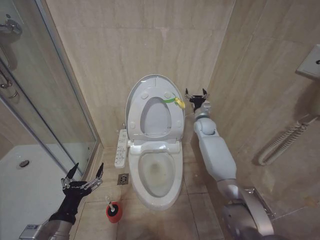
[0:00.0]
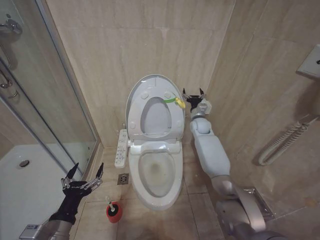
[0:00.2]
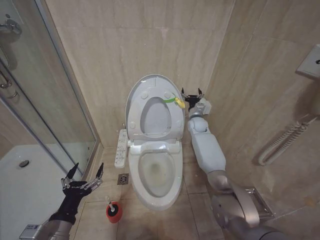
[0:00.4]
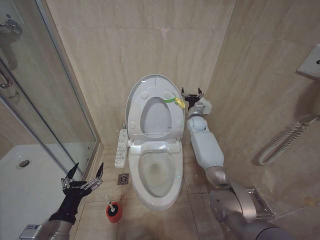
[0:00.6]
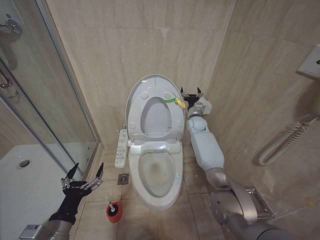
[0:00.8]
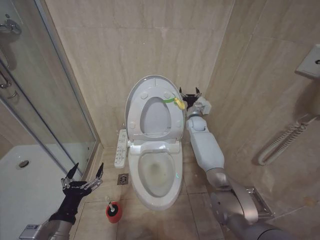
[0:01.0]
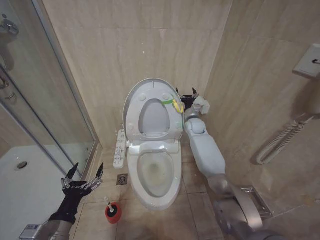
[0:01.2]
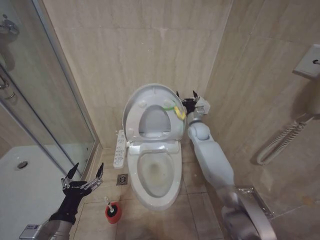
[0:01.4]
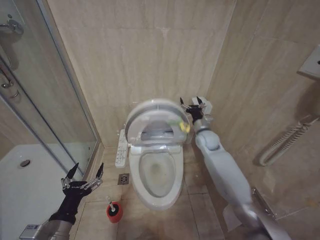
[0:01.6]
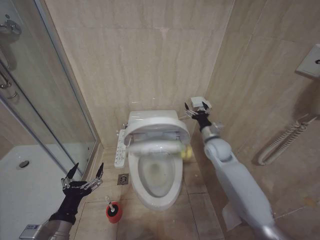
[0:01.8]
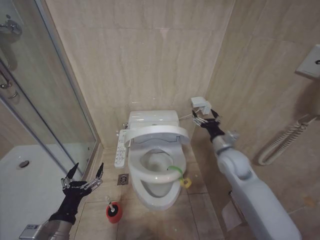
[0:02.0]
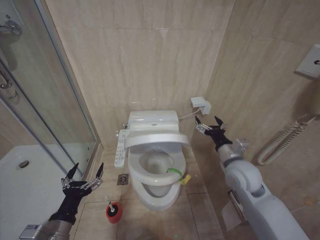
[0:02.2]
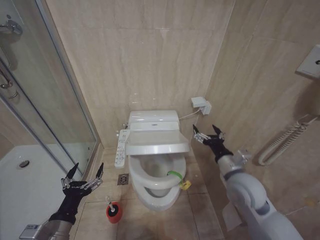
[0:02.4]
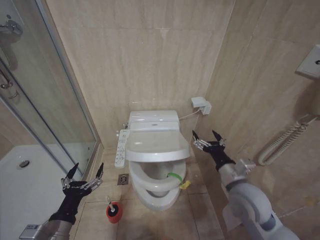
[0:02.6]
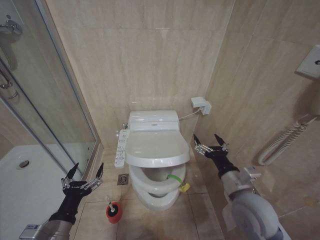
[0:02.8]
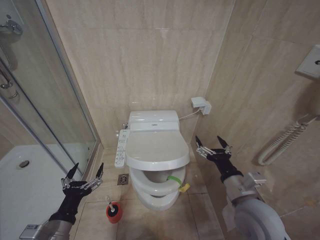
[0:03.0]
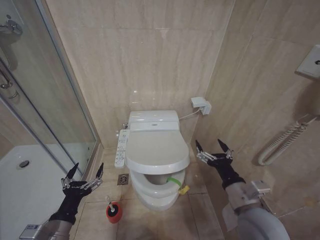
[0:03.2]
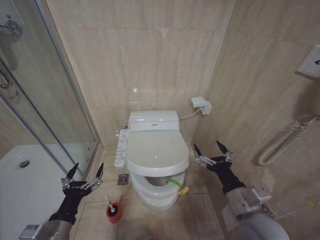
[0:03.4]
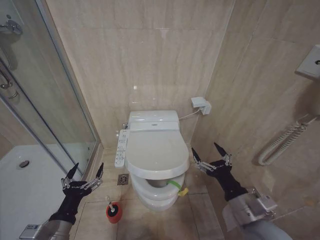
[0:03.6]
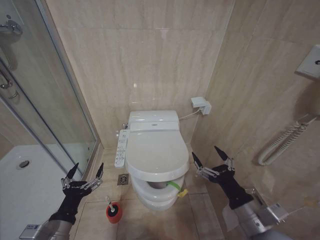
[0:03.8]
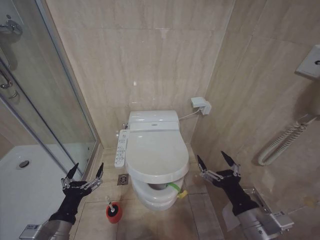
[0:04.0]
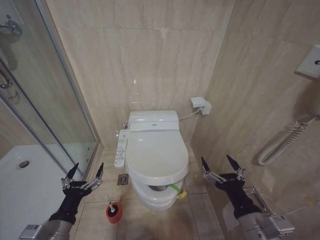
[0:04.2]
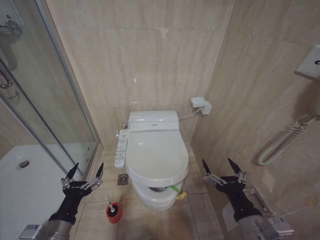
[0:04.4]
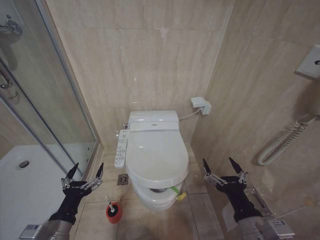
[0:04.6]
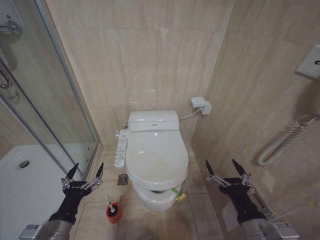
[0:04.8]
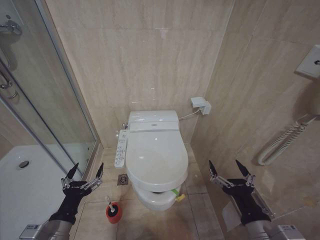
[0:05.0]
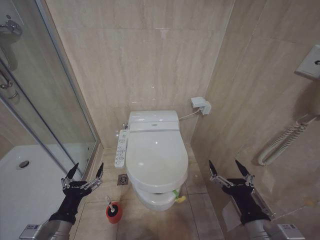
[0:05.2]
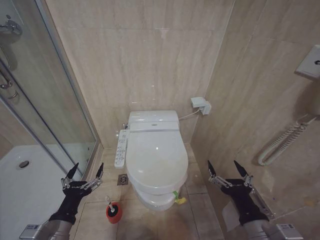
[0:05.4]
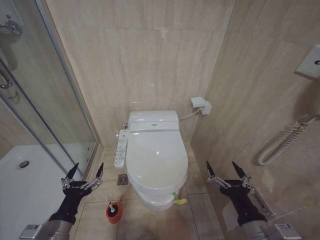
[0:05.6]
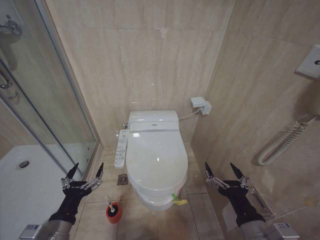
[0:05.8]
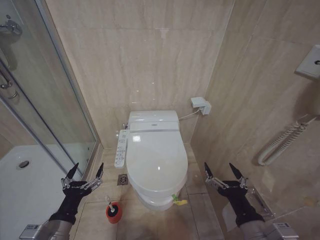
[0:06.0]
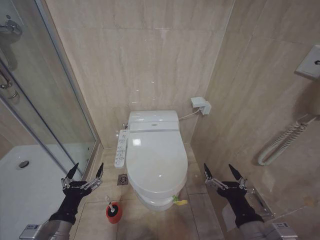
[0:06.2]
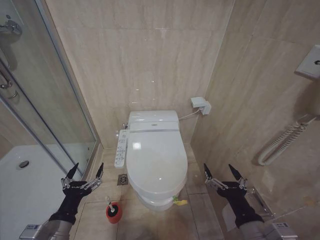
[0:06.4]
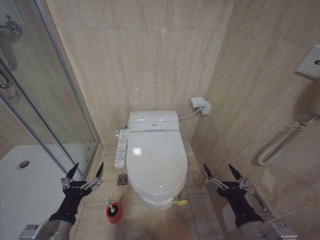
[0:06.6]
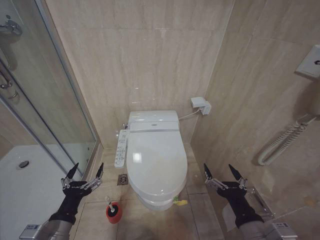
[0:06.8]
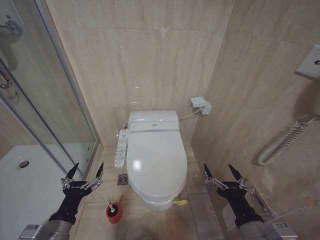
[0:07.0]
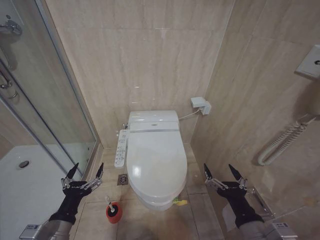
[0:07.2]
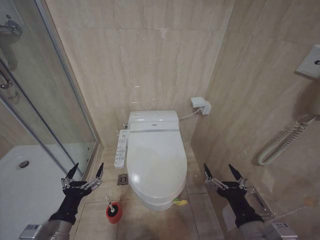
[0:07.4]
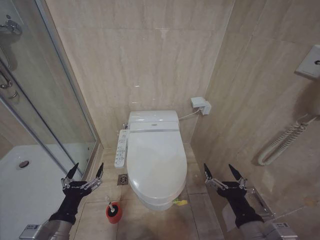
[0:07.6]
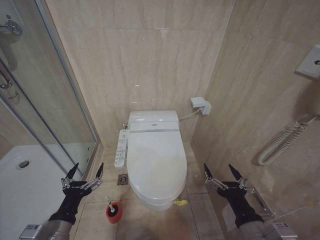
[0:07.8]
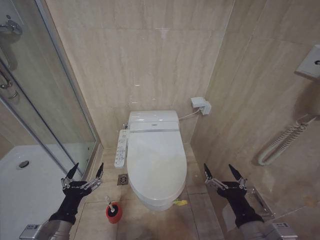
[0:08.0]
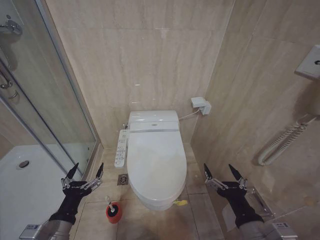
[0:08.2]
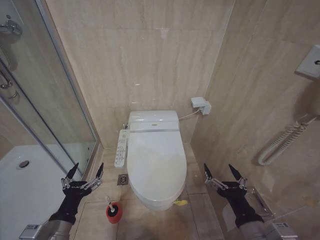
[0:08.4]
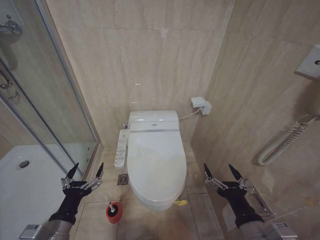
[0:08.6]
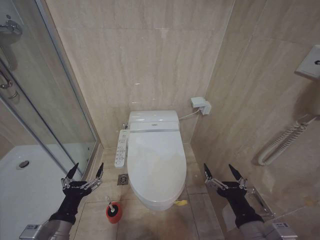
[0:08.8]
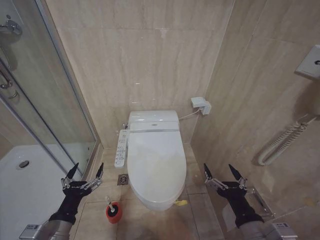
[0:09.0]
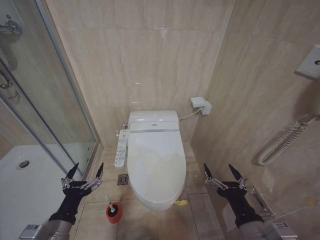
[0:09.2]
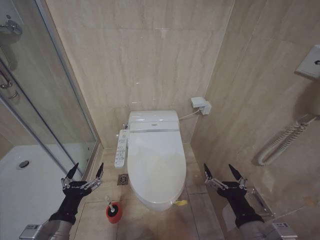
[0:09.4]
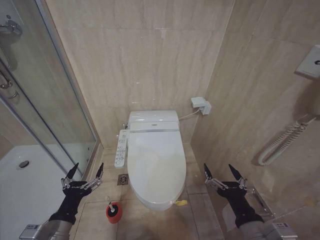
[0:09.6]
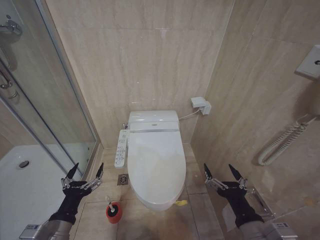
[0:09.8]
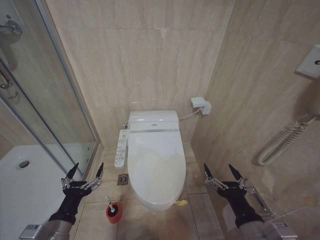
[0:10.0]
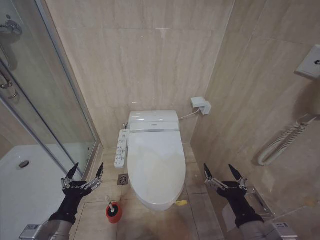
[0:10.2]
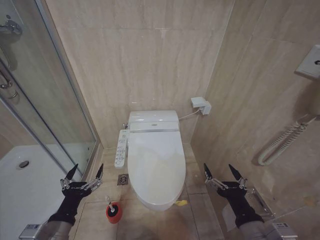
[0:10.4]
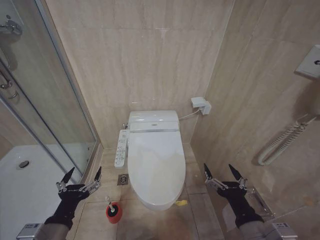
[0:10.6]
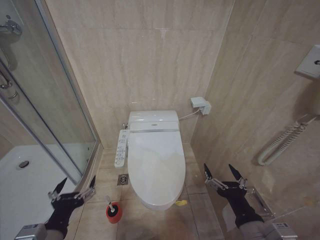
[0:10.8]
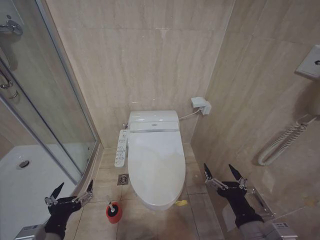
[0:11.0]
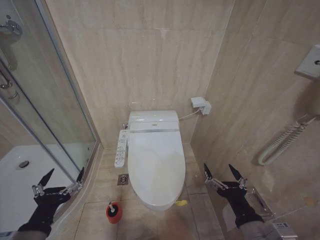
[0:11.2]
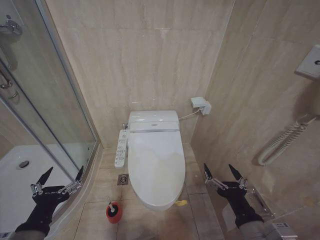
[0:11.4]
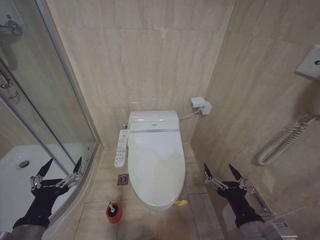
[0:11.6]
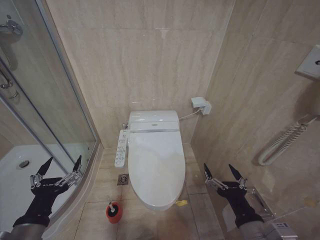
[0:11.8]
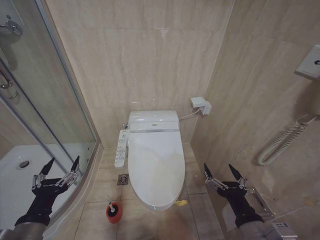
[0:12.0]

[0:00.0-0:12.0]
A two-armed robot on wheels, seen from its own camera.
Task of the whole recording: Open the toilet lid, clean the toilet bowl with a toilet brush, close the toilet lid, and flush.
0:00.0 to 0:01.6: The right gripper ends up approximately 5 cm from where it was.
0:01.6 to 0:03.0: The right gripper is displaced backward by roughly 30 cm.
0:03.0 to 0:04.4: The right gripper moves backward, approximately 10 cm.
0:04.4 to 0:06.0: The grippers stay close to where they were, moving slightly.
0:06.0 to 0:10.4: Both grippers stay about where they are.
0:10.4 to 0:12.0: The left gripper shifts roughly 5 cm upward.

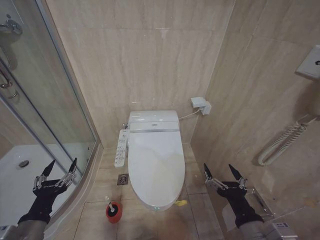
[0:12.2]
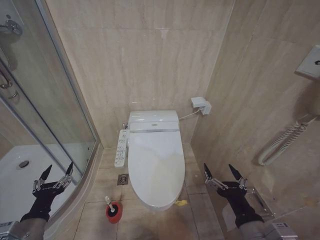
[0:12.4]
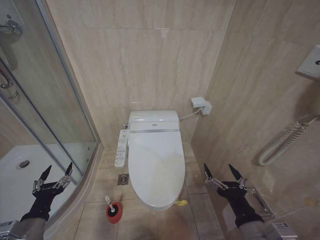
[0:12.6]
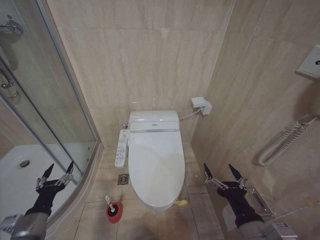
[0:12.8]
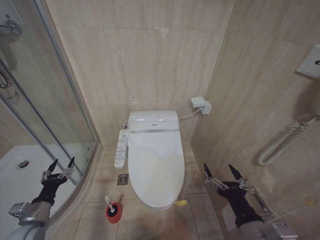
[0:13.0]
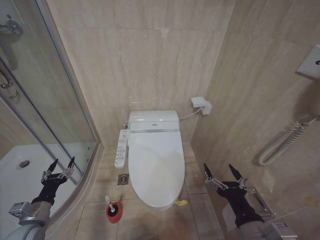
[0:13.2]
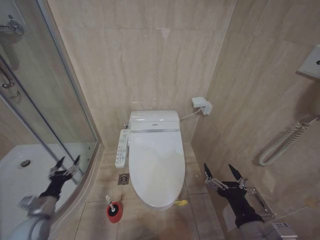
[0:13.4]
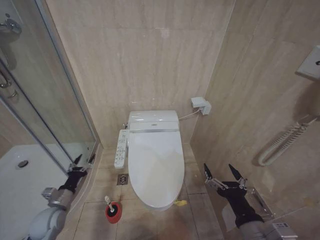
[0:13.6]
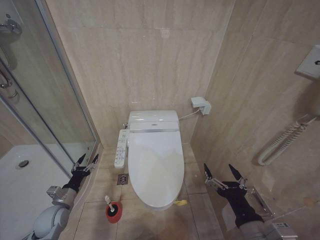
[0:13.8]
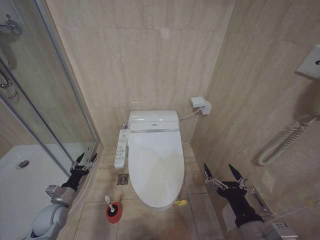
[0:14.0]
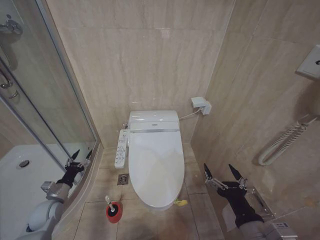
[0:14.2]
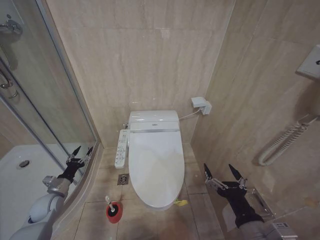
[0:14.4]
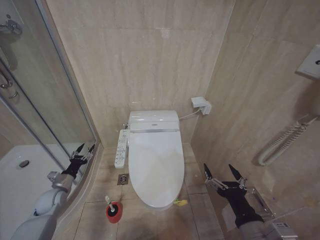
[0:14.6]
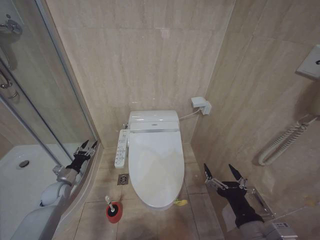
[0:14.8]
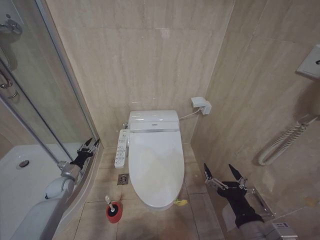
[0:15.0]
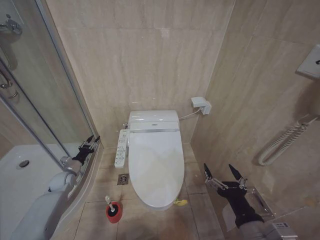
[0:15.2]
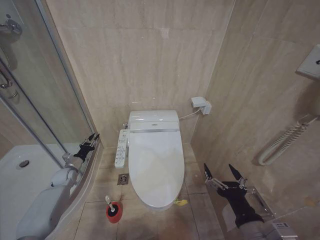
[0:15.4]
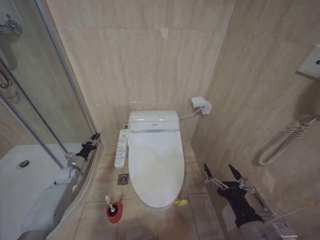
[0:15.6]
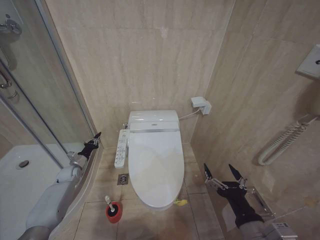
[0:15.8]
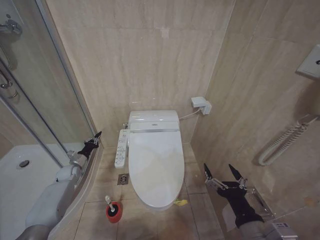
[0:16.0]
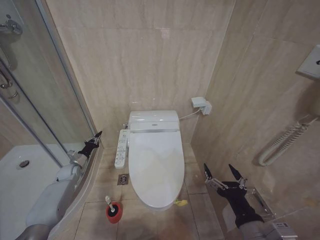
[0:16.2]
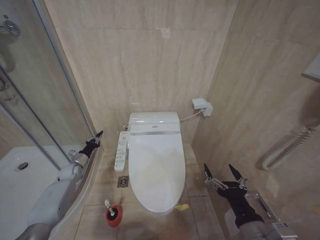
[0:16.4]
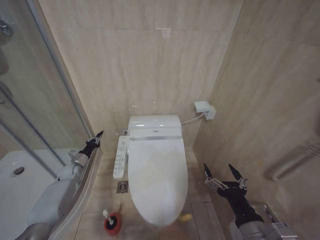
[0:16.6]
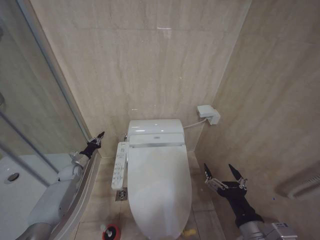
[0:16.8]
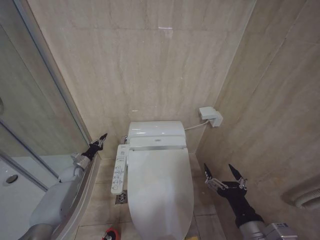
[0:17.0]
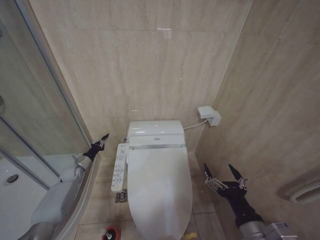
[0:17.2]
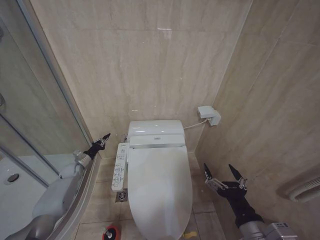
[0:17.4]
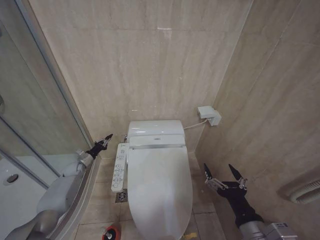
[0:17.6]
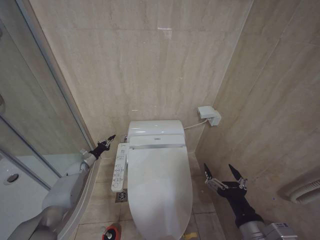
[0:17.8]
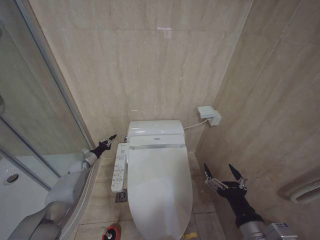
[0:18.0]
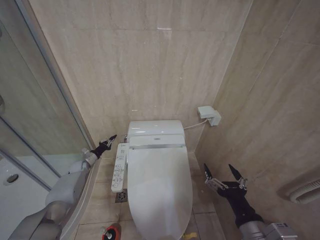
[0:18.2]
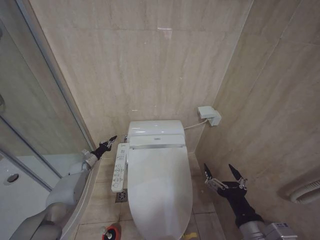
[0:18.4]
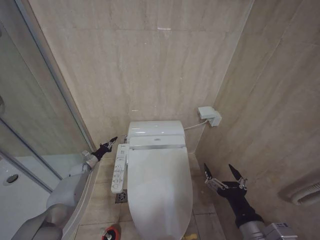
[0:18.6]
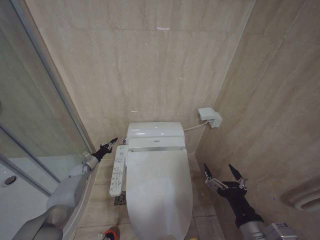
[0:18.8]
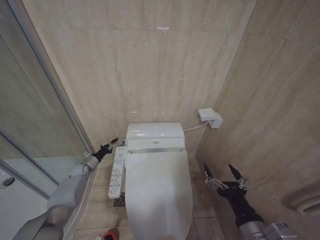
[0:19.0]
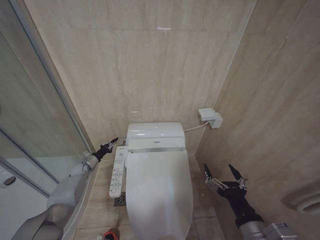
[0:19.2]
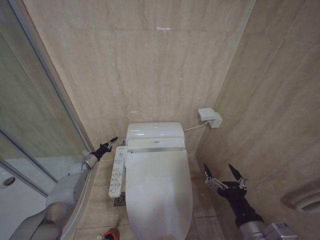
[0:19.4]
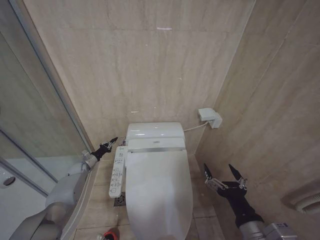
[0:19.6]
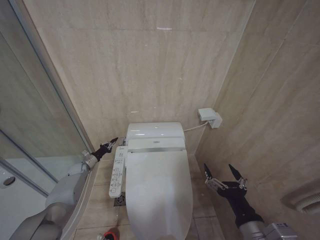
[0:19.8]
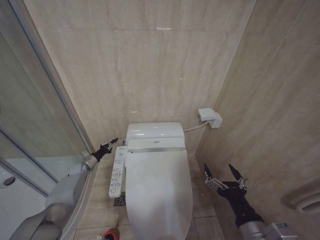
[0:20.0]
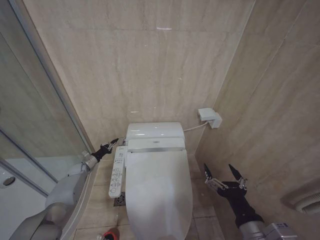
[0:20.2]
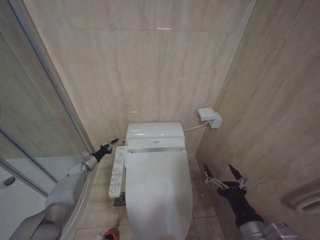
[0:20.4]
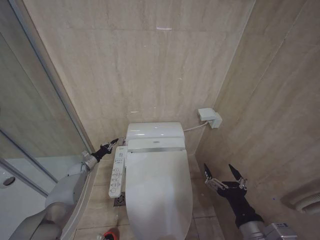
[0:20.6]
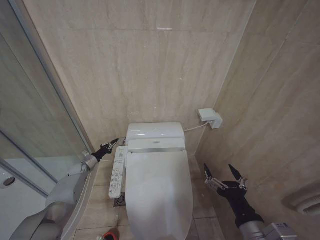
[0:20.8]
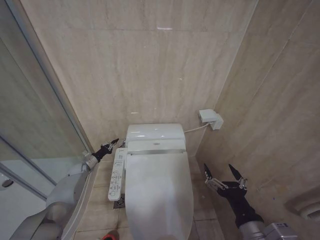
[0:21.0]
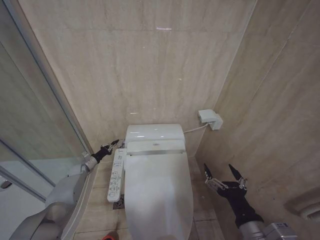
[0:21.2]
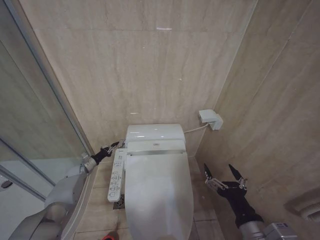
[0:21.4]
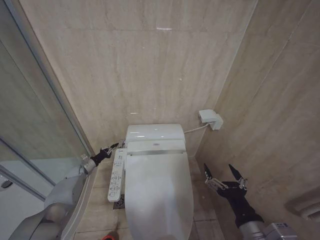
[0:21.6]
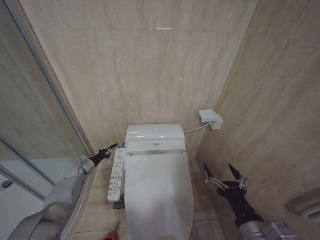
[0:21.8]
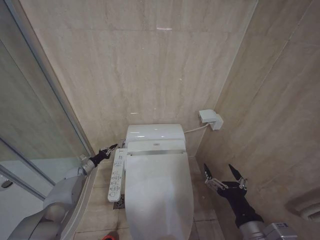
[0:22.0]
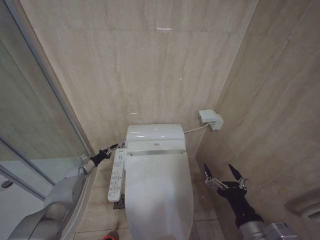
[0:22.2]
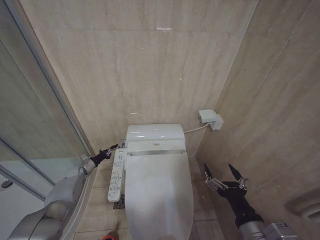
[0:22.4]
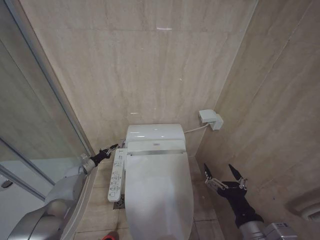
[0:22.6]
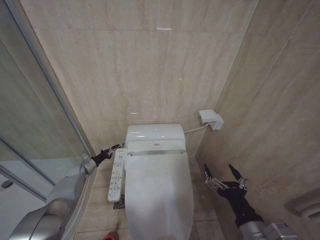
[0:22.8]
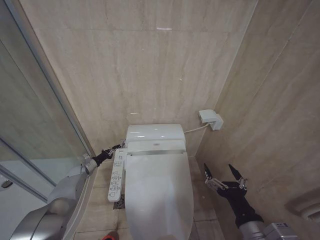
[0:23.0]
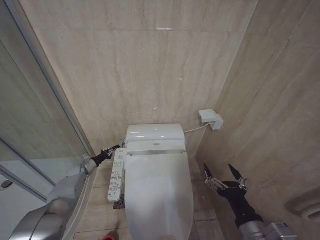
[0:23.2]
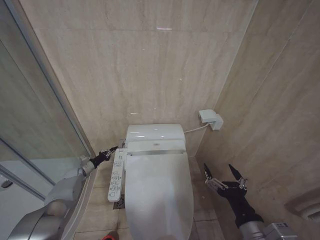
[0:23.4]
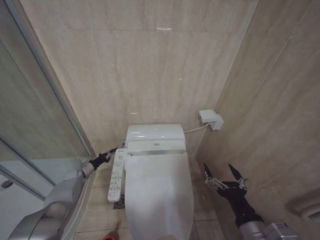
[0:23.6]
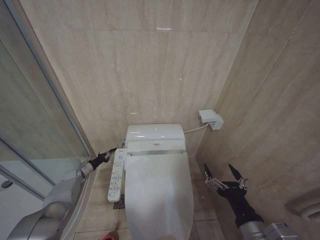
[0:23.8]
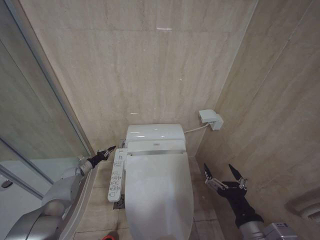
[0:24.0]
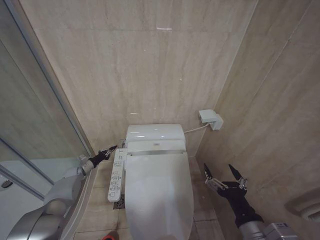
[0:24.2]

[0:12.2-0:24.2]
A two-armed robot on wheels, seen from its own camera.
Task of the whole recording: Open the toilet lid, clean the toilet bowl with a toilet brush, close the toilet lid, and flush.
0:12.2 to 0:13.8: The left gripper shifts about 25 cm forward, downward and to the left.
0:13.8 to 0:15.2: The left gripper is displaced forward by roughly 15 cm.
0:15.2 to 0:16.6: The left gripper goes about 5 cm forward, and closes up.
0:16.6 to 0:18.2: The left gripper shifts by approximately 5 cm.
0:18.2 to 0:19.8: There are only small adjustments of the grippers.
0:19.8 to 0:21.2: The two grippers keep their place.
0:21.2 to 0:22.6: The grippers make only small movements.
